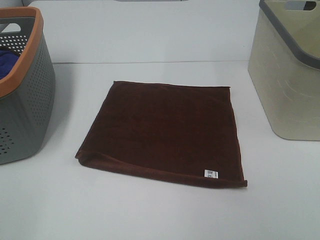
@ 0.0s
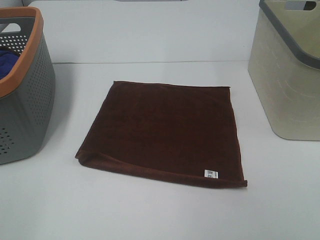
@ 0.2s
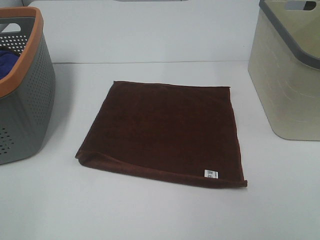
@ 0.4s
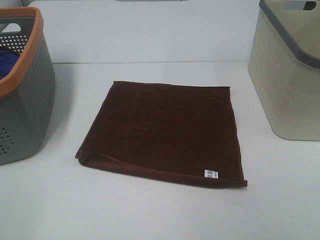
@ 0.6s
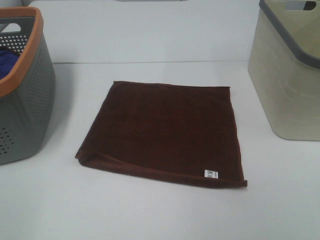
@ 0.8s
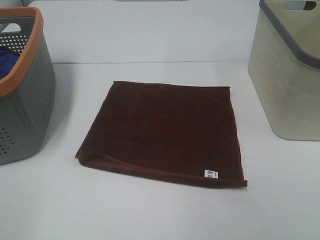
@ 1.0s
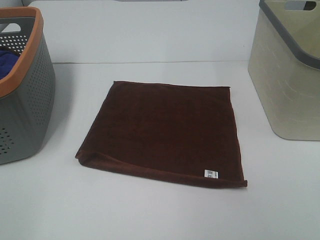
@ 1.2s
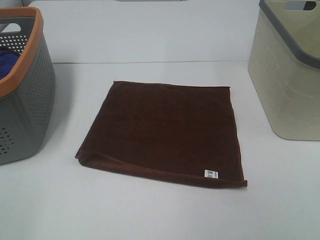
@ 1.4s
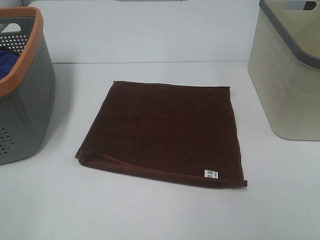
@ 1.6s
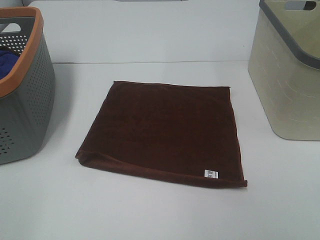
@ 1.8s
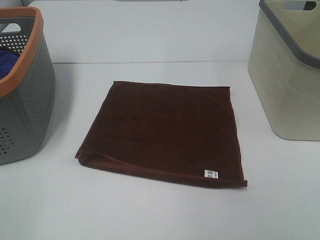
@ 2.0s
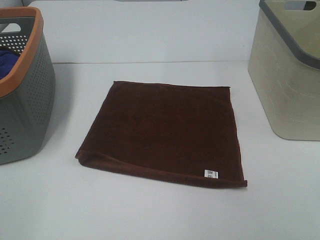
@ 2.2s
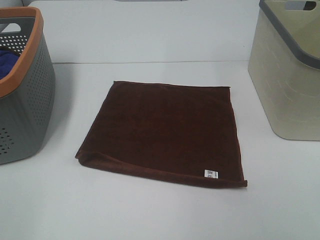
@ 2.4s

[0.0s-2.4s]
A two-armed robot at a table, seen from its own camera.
Task of the whole recording: Remove the towel and place it.
0.0s to 2.4s: The two grippers keep their place.

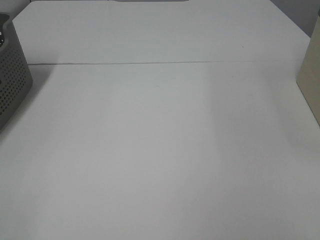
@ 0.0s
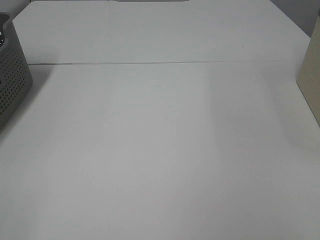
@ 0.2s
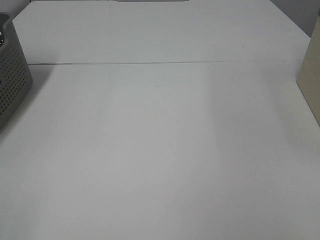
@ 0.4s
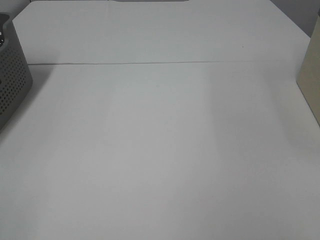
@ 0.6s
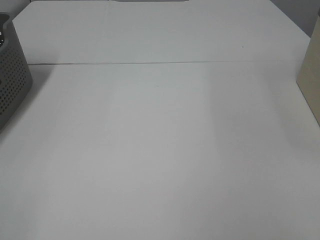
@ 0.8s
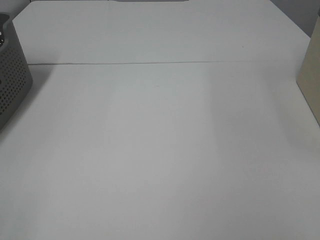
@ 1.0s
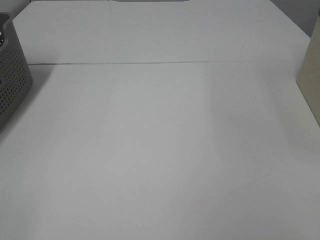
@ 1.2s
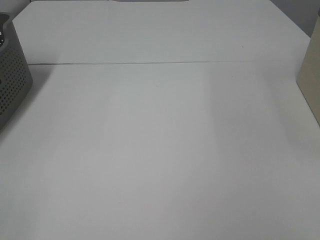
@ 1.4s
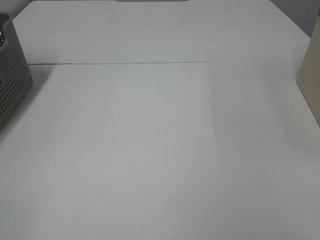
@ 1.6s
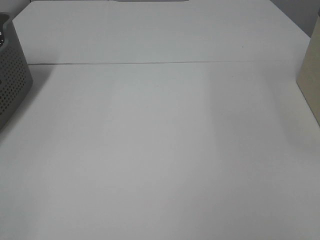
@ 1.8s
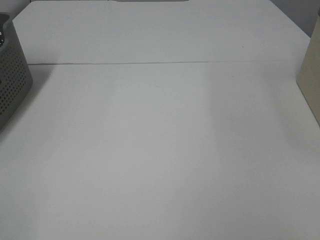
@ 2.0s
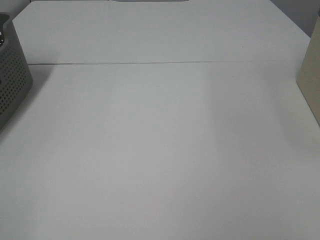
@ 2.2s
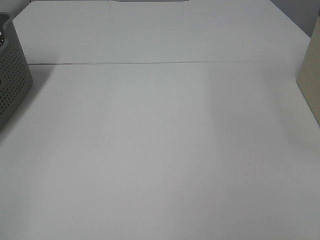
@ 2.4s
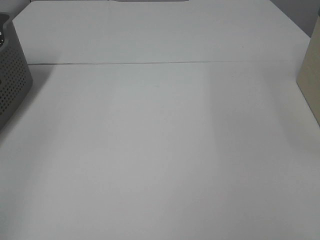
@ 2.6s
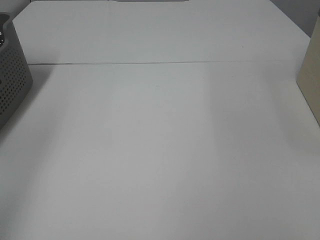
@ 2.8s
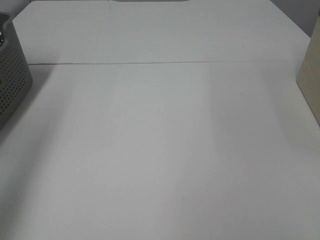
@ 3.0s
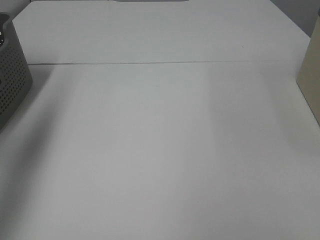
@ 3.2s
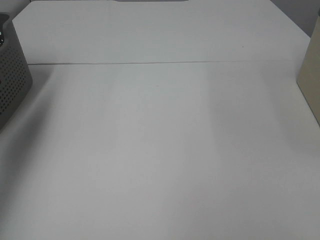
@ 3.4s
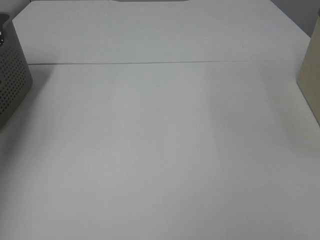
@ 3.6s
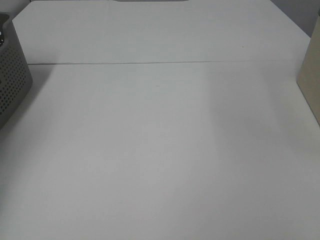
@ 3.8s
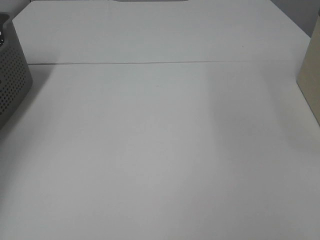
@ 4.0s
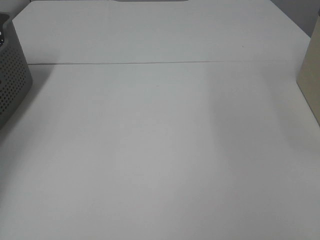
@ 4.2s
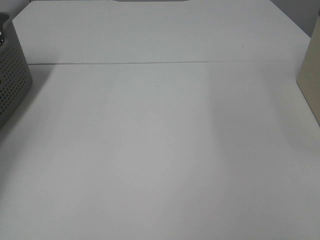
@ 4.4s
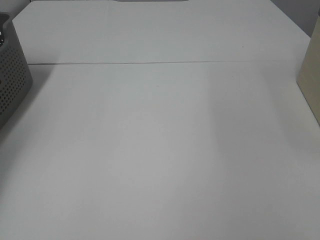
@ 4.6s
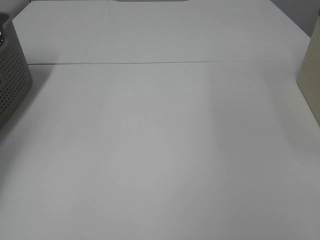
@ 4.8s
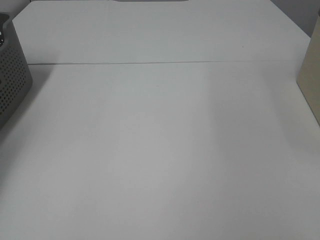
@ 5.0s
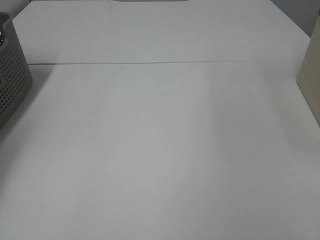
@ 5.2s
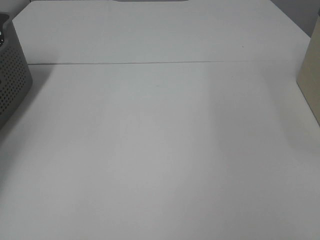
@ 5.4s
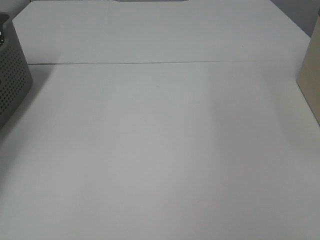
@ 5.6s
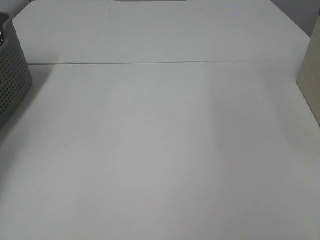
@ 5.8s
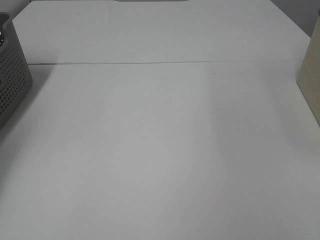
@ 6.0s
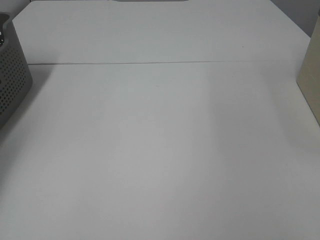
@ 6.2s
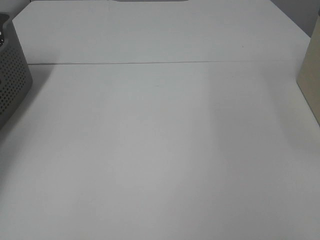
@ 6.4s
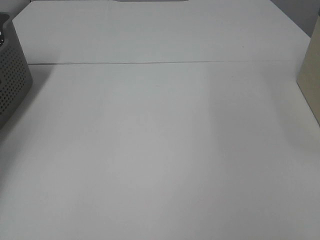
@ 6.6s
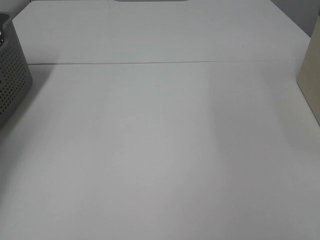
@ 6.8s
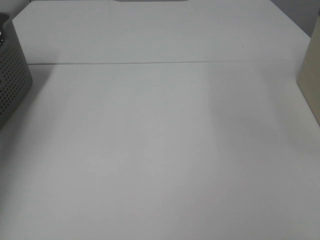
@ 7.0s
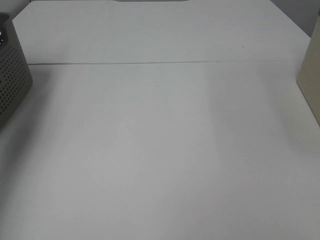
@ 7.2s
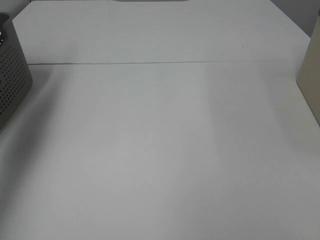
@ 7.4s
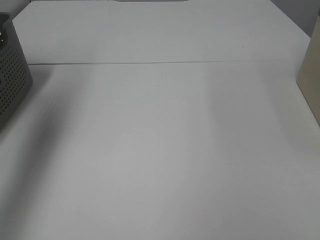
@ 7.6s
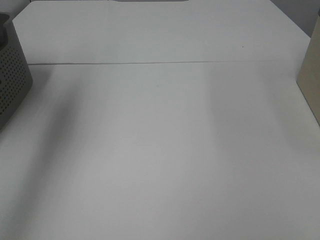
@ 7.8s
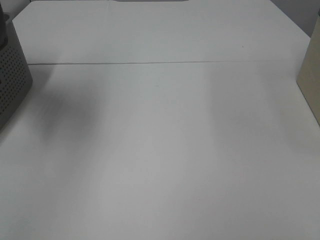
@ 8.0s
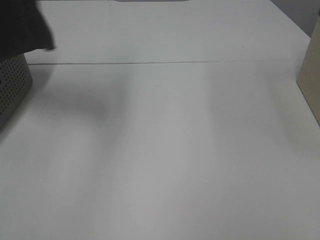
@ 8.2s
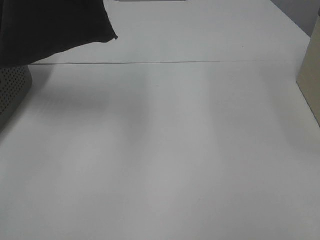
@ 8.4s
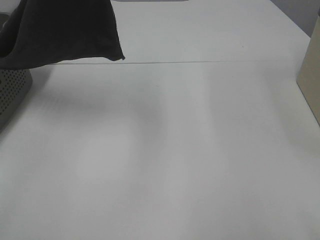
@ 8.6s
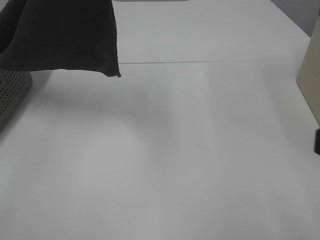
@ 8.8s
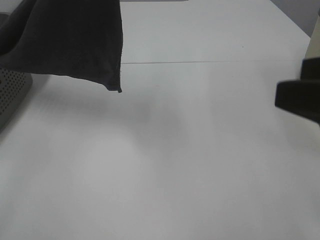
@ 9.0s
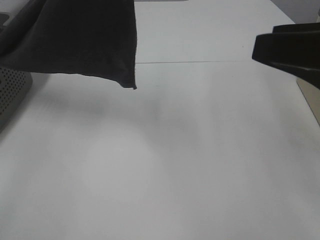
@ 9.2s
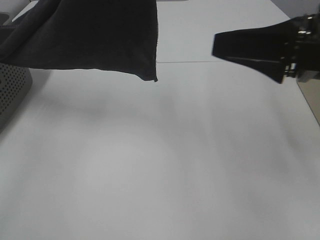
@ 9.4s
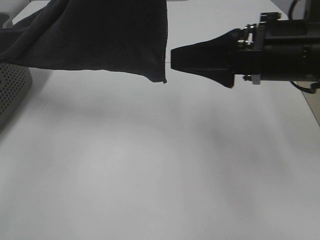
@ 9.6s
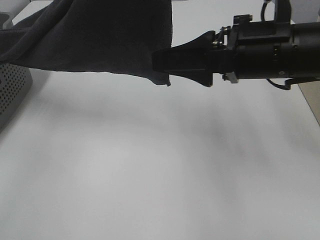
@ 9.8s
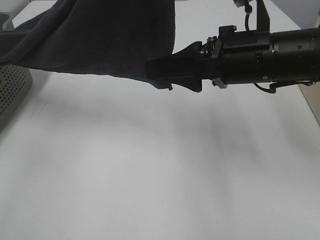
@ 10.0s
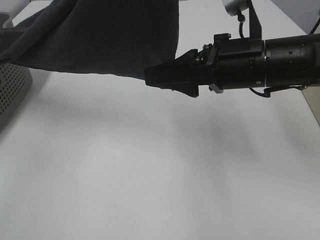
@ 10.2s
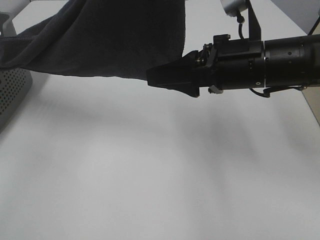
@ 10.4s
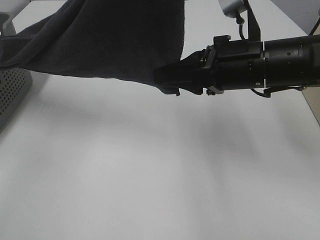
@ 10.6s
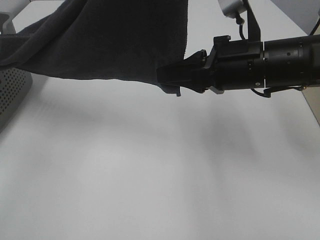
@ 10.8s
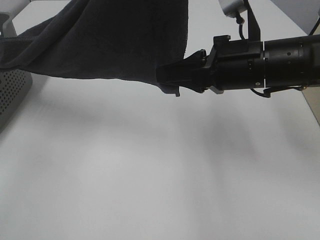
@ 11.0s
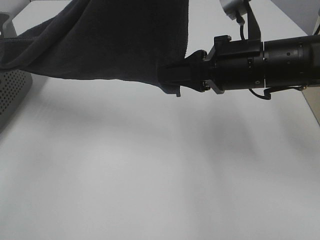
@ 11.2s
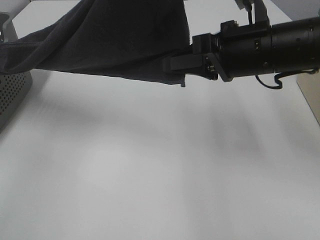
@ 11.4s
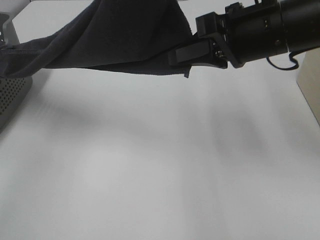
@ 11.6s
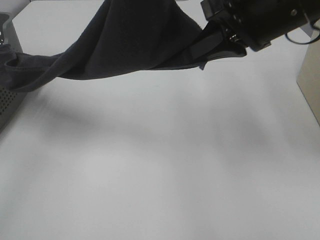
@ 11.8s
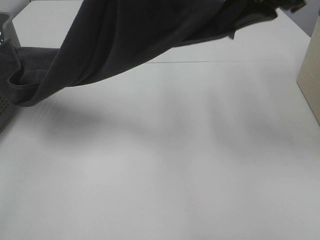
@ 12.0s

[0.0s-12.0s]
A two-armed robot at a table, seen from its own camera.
Task of the whole recording: Remove the towel and place it.
0.0s to 1.6s: Neither gripper changes place.
1.6s to 3.0s: The left gripper is displaced forward and upward by roughly 20 cm.
3.0s to 4.4s: The left gripper is displaced forward, downward and to the left by about 35 cm.
6.0s to 7.6s: The left gripper shifts about 35 cm upward, to the right and backward, and closes its fingers.
7.6s to 9.0s: The left gripper travels to the right by about 25 cm. The right gripper goes about 10 cm forward.
9.0s to 10.4s: The right gripper moves forward, to the left and downward, some 20 cm.
10.4s to 12.0s: The right gripper shifts approximately 15 cm upward, and closes.

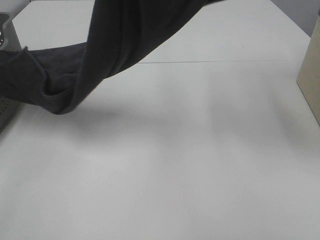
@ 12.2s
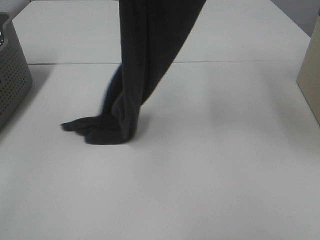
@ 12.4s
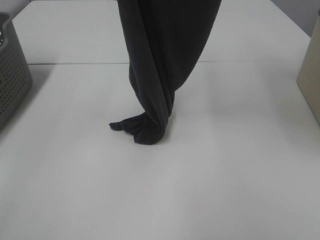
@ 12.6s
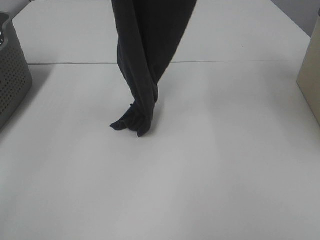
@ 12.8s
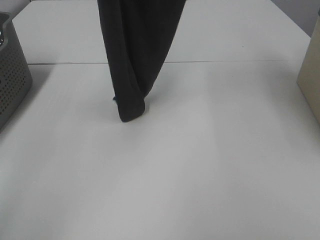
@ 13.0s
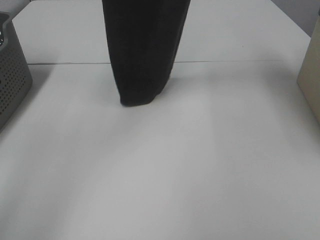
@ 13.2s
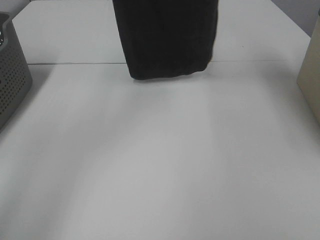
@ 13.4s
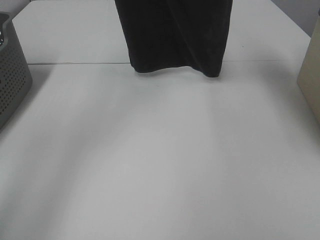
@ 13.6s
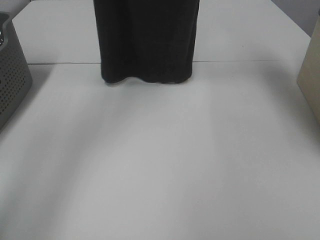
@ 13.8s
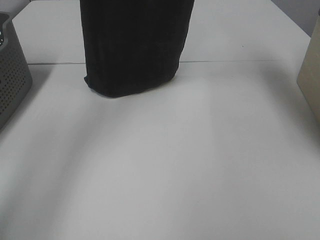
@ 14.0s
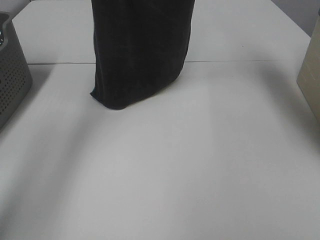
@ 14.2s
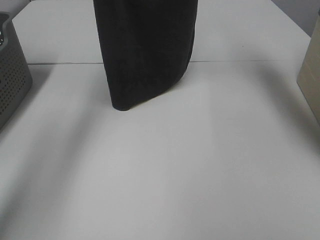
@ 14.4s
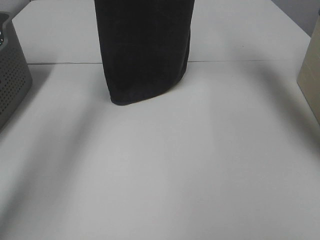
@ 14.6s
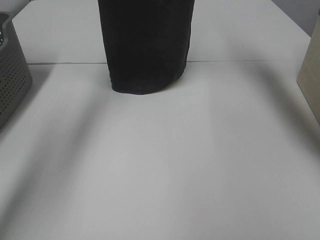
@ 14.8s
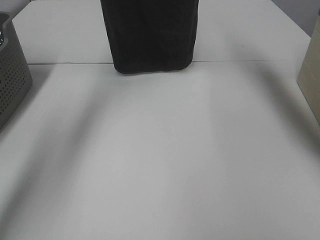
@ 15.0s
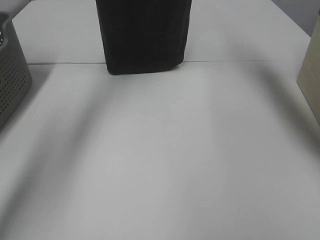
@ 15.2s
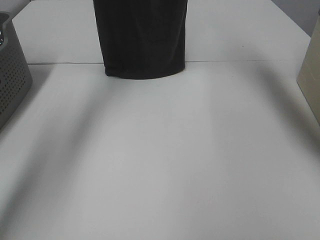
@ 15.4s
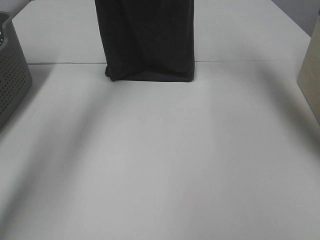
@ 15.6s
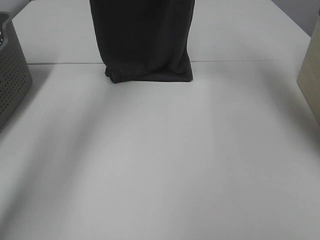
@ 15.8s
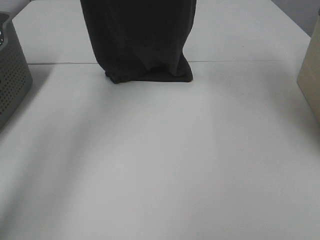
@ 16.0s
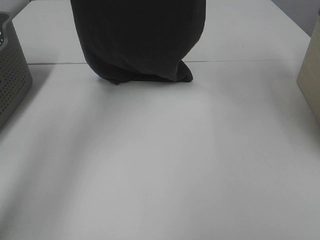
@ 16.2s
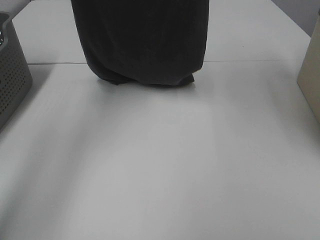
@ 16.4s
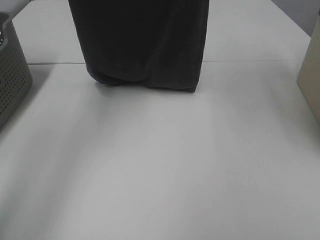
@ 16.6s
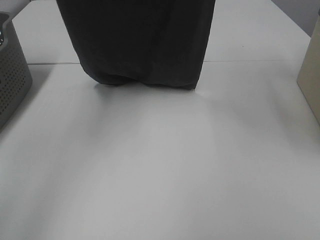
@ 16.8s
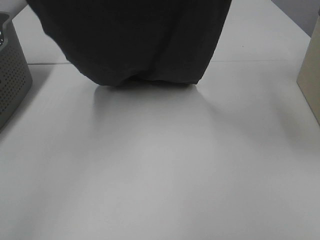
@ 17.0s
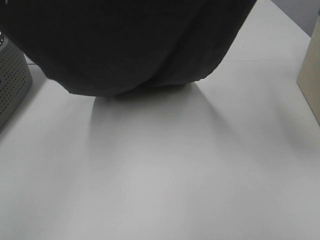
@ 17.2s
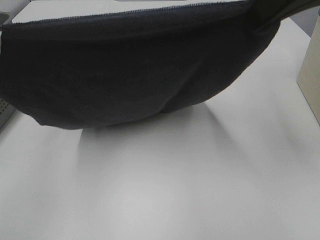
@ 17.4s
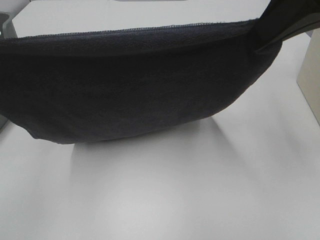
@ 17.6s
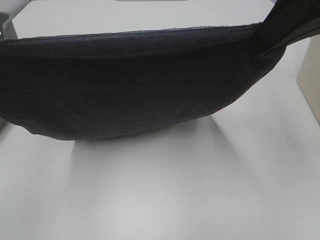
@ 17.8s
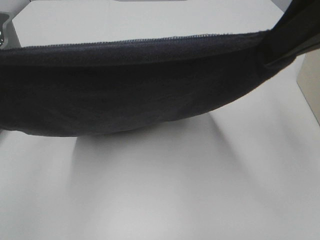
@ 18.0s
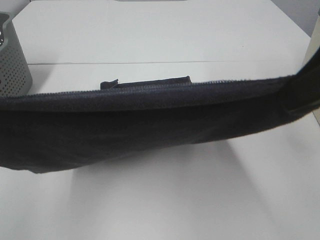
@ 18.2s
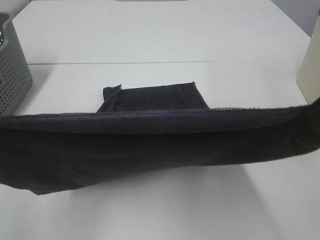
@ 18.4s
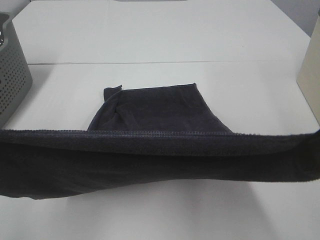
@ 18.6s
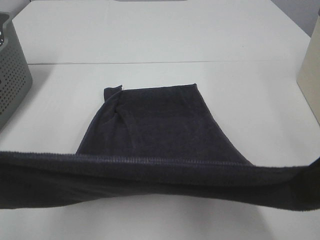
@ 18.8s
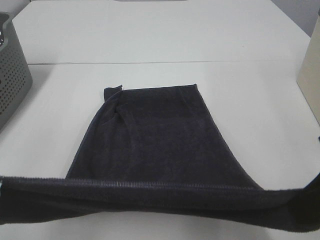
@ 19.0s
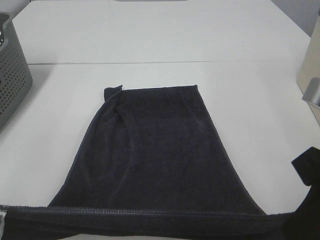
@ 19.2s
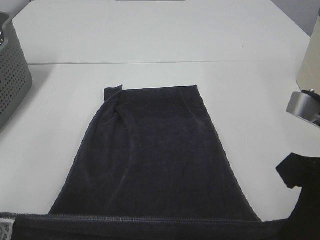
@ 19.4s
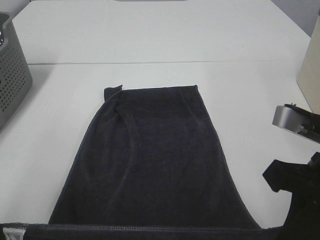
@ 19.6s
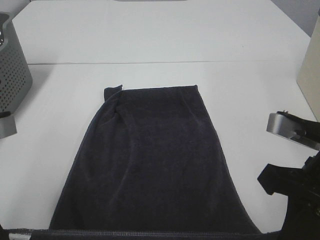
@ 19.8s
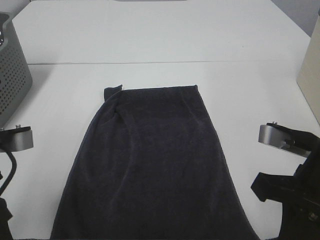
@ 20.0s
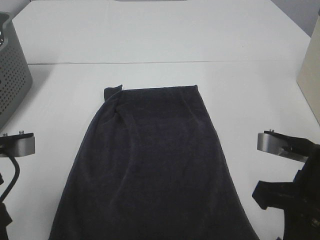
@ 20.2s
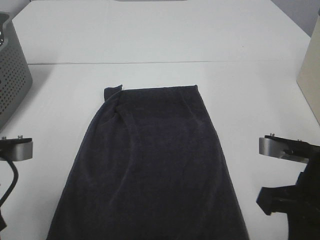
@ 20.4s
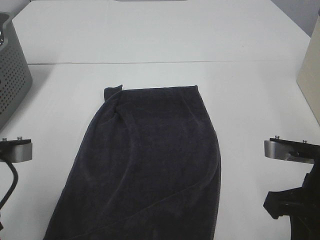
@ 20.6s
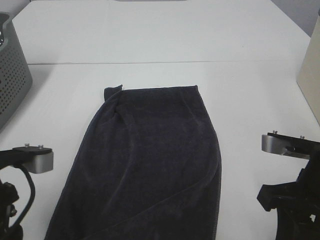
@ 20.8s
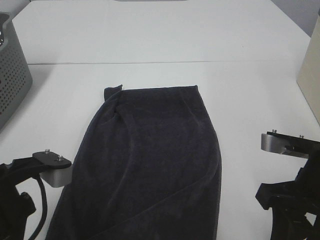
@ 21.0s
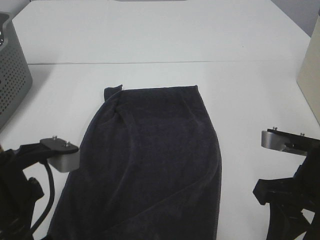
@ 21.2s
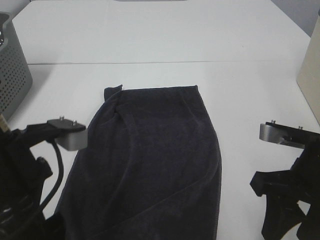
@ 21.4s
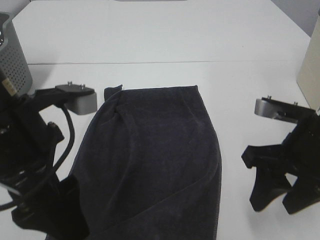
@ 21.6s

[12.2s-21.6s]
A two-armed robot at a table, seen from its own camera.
Task of the whole recording: Remove the towel and place it.
Step, 13.2s to 17.2s: Left hand: spread the grey towel flat on the table.
Step, 13.2s to 17.2s: Right hand: spread the grey towel flat on the table.
12.2s to 13.8s: The right gripper travels forward and upward by approximately 15 cm, while the left gripper moves forward and to the left, roughly 15 cm.
13.8s to 15.4s: The right gripper moves forward, approximately 5 cm, while the left gripper travels forward by approximately 10 cm.
15.4s to 17.0s: Both grippers move backward, some 20 cm.
17.0s to 18.4s: The grippers both shift backward and downward by roughly 20 cm.
18.4s to 20.0s: Both grippers travel together downward, some 15 cm.
20.0s to 21.6s: The right gripper opens up; the left gripper is displaced to the right by approximately 5 cm, and opens its fingers.
